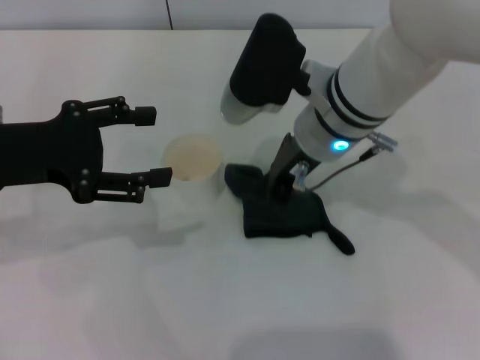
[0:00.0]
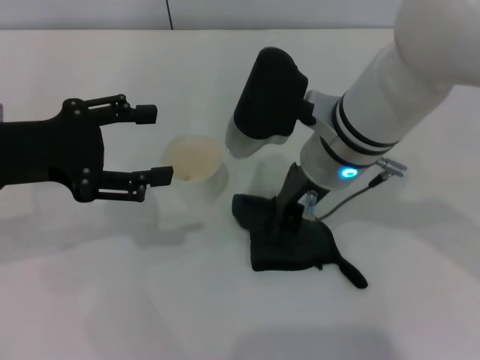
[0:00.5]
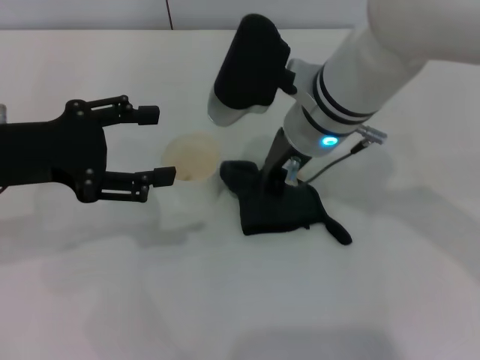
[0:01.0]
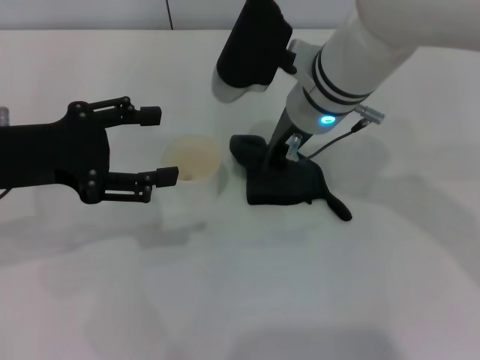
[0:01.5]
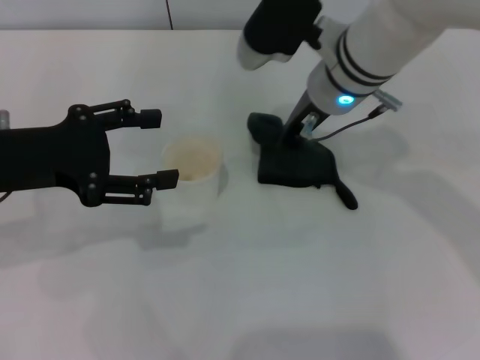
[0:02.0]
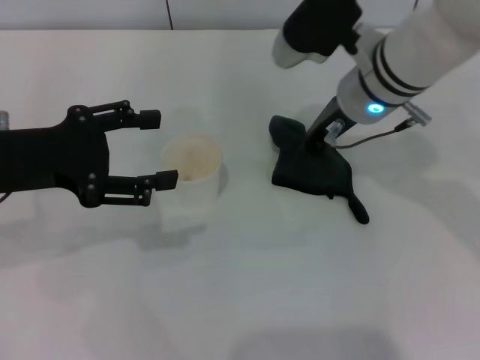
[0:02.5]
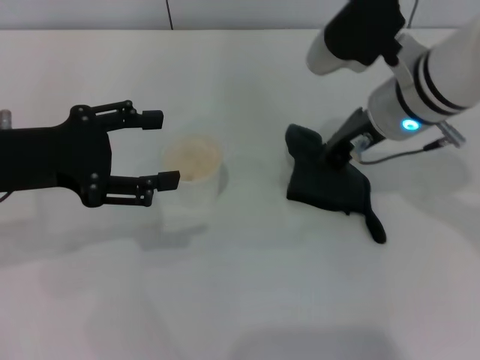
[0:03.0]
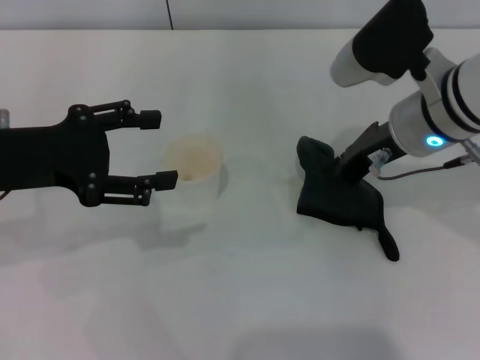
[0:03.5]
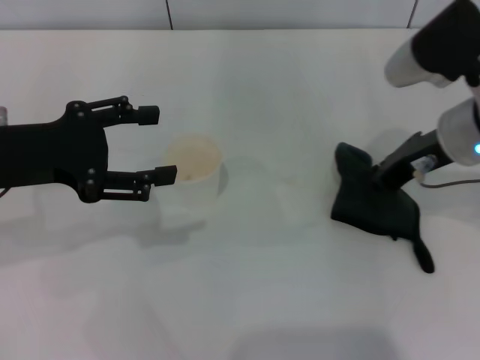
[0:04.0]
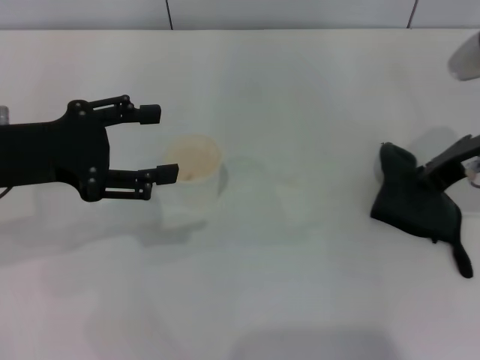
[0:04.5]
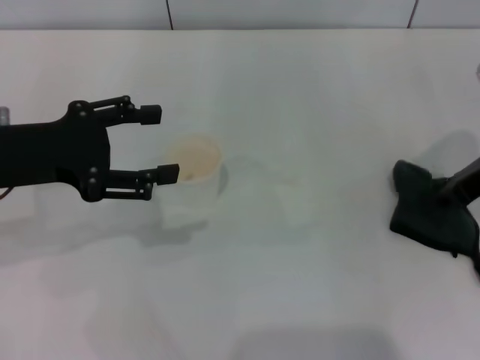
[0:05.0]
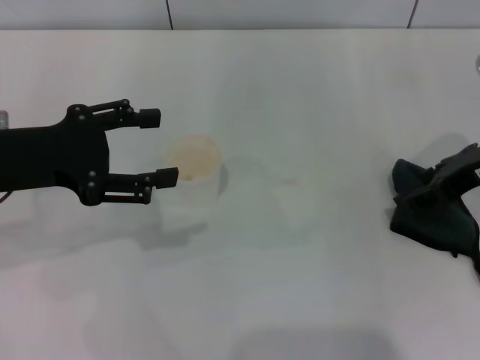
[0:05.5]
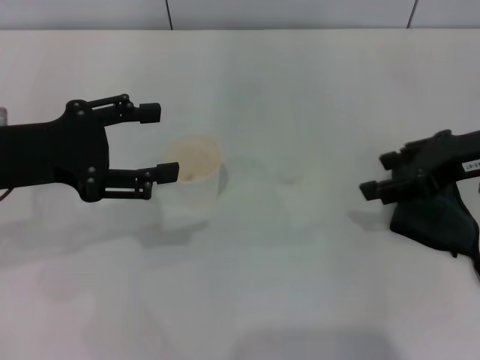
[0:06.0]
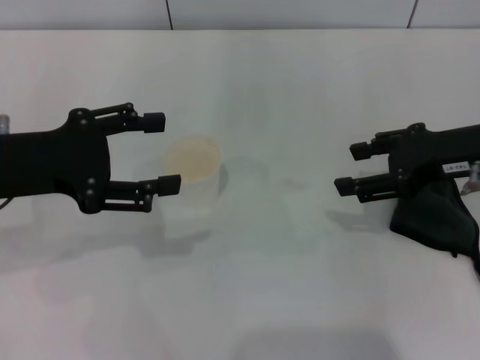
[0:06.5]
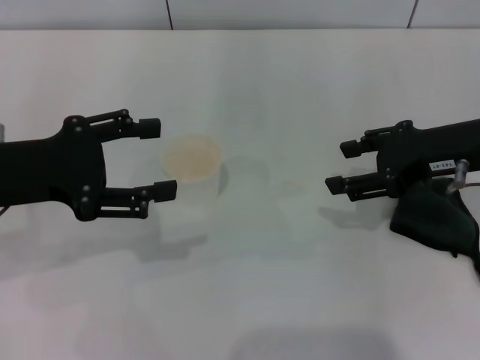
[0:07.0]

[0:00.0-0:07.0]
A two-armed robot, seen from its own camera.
Step, 0:01.5 to 0:05.5: Place the rag on the table with the right gripper.
0:00.0 to 0:02.0: The grippers make only small movements.
0:02.0 to 0:03.5: The right gripper heads to the right and backward, covering about 10 cm.
0:03.5 to 0:05.0: The right gripper shifts about 10 cm to the right.
0:05.0 to 0:07.0: The right gripper opens up.
